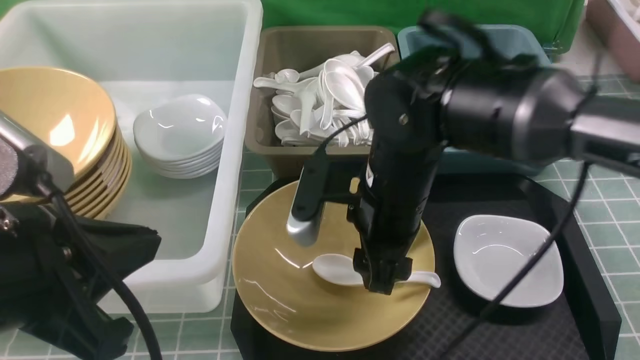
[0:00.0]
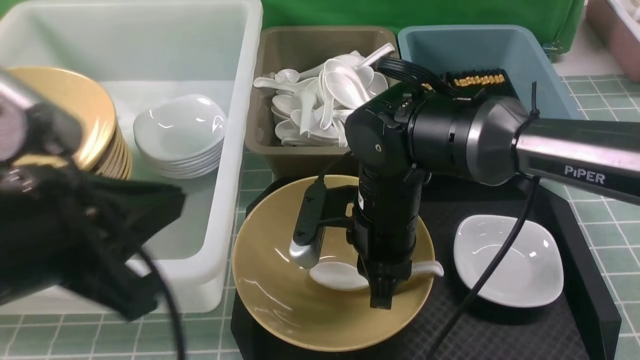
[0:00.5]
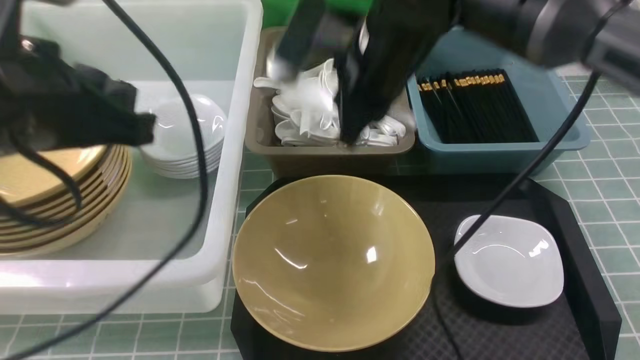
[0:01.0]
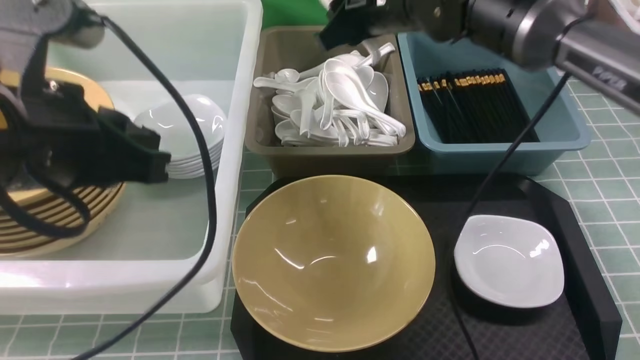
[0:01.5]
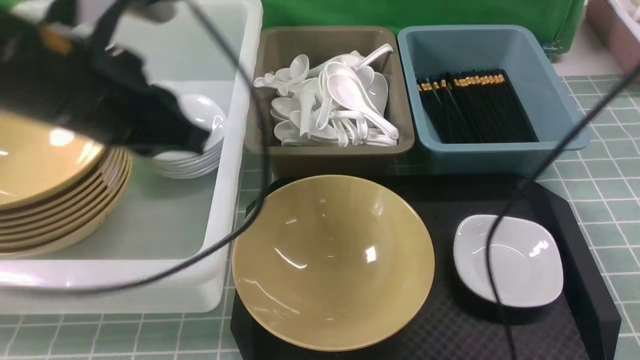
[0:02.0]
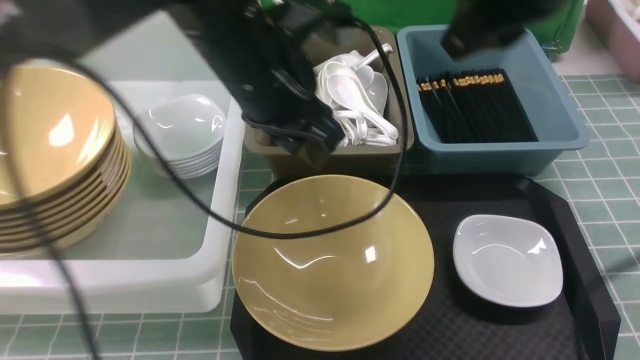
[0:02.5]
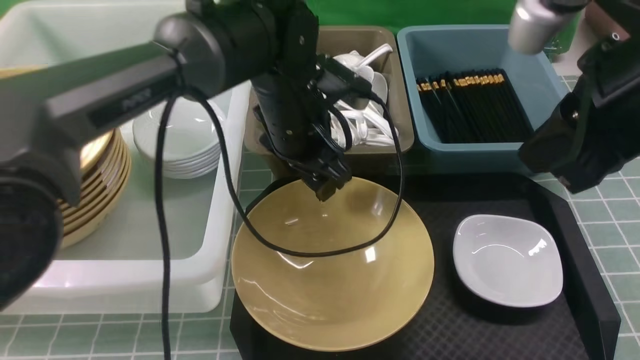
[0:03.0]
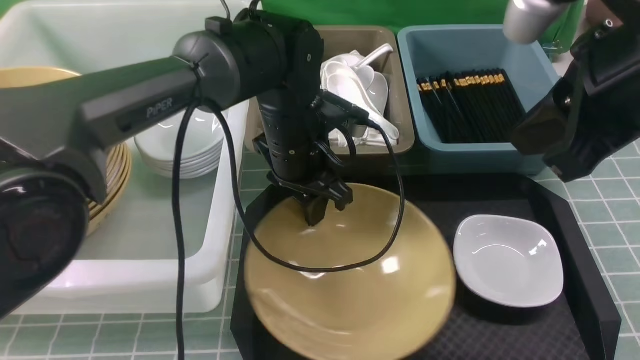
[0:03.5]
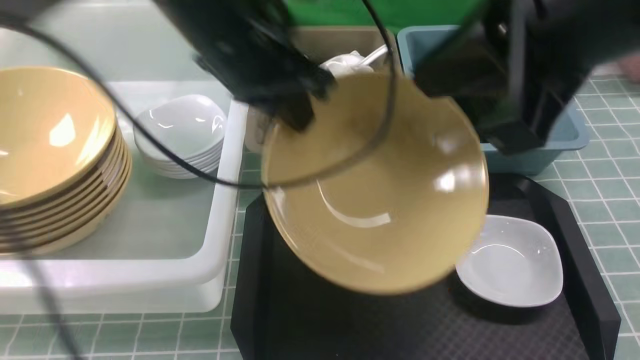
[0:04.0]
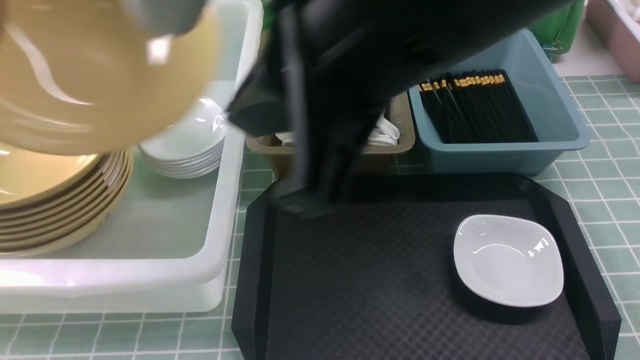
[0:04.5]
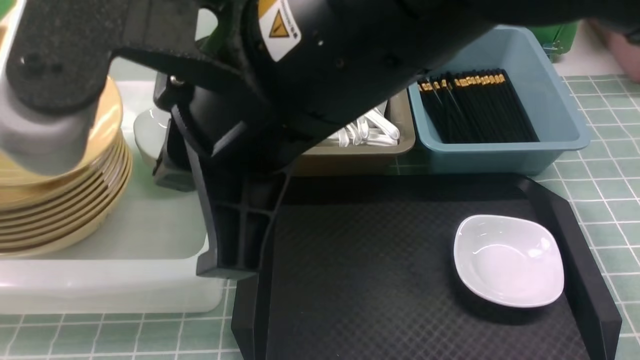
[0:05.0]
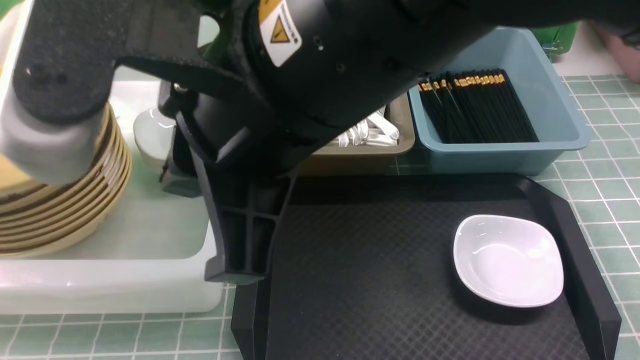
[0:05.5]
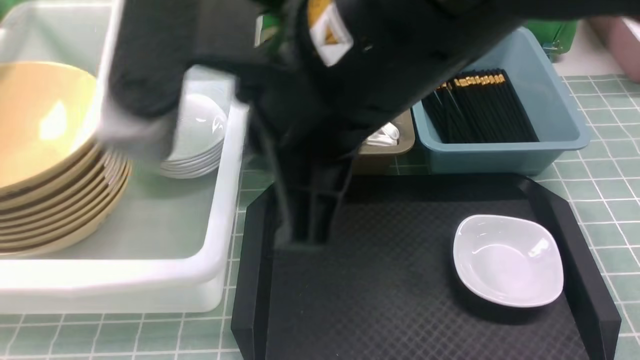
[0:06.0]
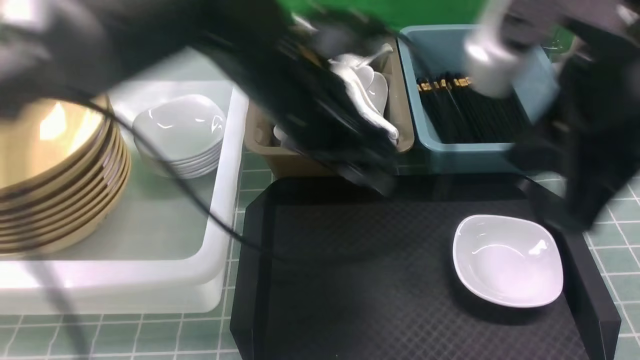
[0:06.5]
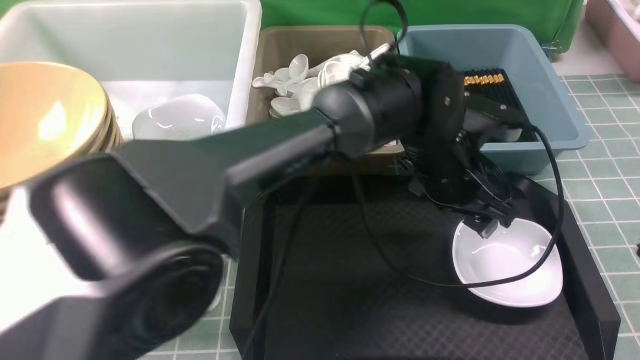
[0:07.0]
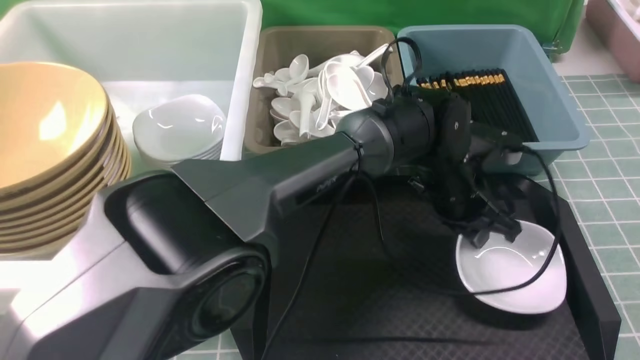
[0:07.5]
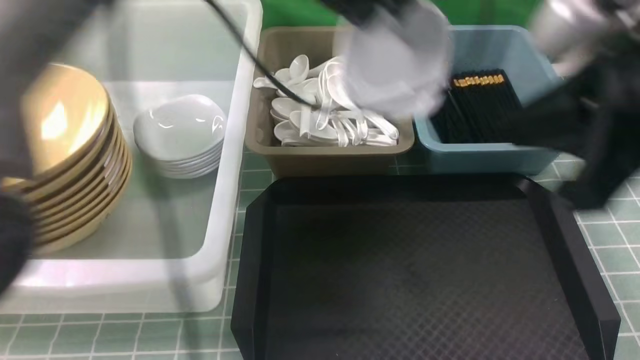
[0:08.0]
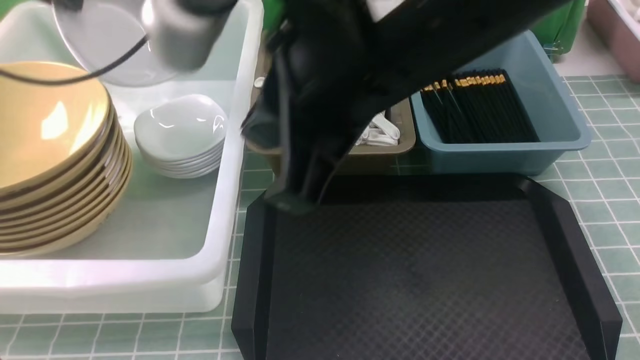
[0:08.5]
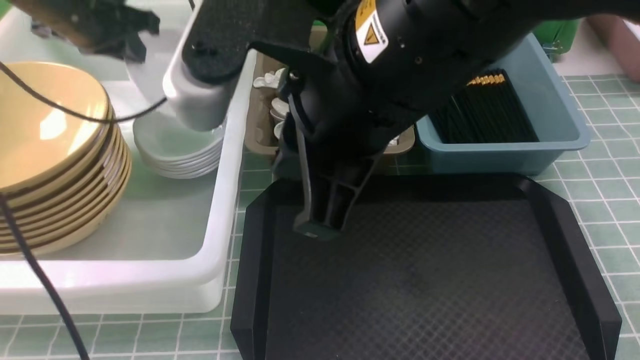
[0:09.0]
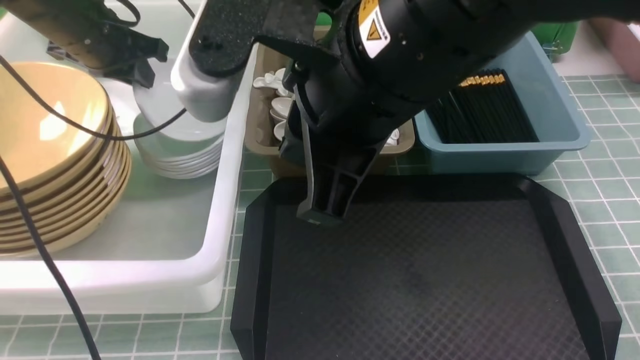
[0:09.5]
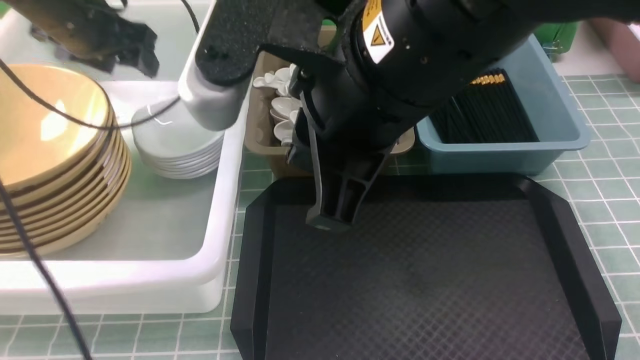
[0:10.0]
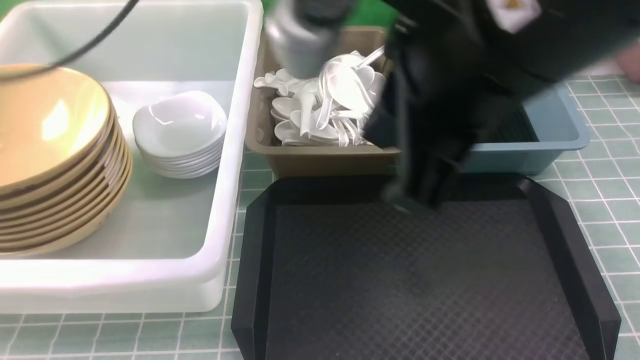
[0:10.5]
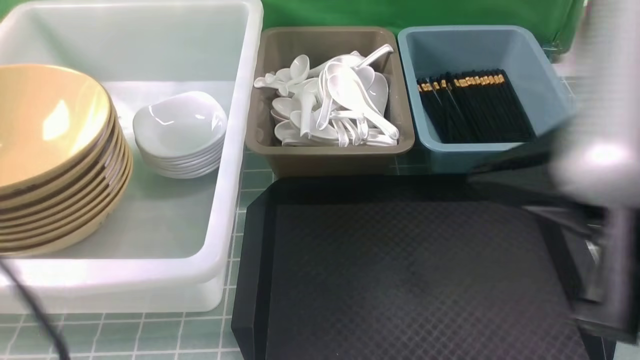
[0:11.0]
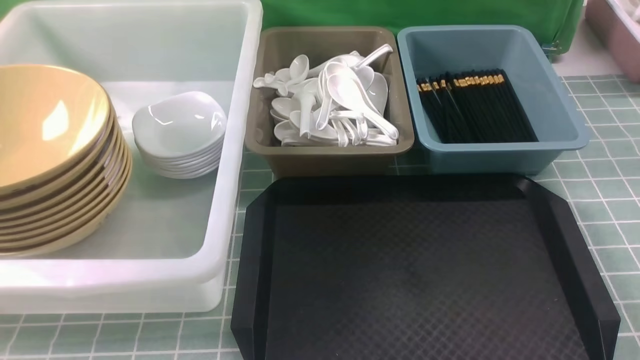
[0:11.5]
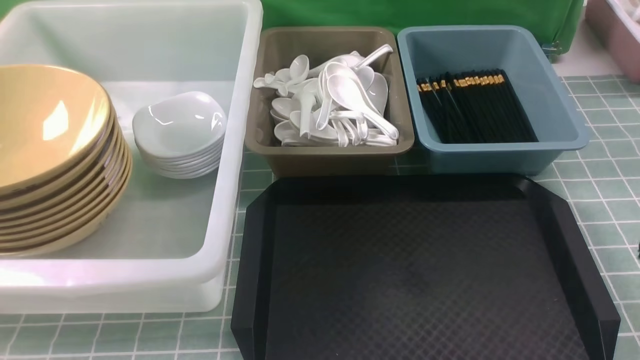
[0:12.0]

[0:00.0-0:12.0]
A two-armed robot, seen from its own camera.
Task of the whole recording: on blue table put chopsticks spoon bowls plates into blue grey white boxes.
Step, 0:01.0 to 0:01.5: use the right arm to put the soup spoon into the small storage box in the middle.
Step, 0:02.0 to 0:03.5: use the left arm to grab the yellow noodle bowl on the left.
Step, 0:04.0 to 0:05.5: use the left arm to put the noodle bowl into the large storage box on the left.
Step, 0:06.0 to 0:07.5: use the left arm to grab the plate.
Step, 0:08.0 to 0:10.0: use the left arm to put the plate into the large storage box on the left.
0:00.0 to 0:02.0: The right gripper travels upward and forward by some 20 cm, and closes and opens again. Meanwhile the left gripper travels forward by about 15 cm.
0:02.0 to 0:04.0: The left gripper is displaced forward by some 5 cm, goes downward and returns, about 15 cm each way, and opens, then closes once more. Meanwhile the right gripper shifts roughly 20 cm backward, and closes its fingers.
0:04.0 to 0:06.0: The right gripper goes approximately 10 cm to the left, while the left gripper is displaced to the left by about 15 cm, and opens up.
0:06.0 to 0:08.0: The left gripper is displaced to the right by about 25 cm, and closes its fingers. Meanwhile the right gripper is displaced to the right by some 15 cm.
0:08.0 to 0:10.0: The right gripper heads to the left, covering about 10 cm, while the left gripper goes approximately 20 cm to the left, and opens up.
0:10.0 to 0:12.0: The left gripper travels backward by roughly 40 cm, and closes up, while the right gripper travels to the right and backward by some 25 cm.

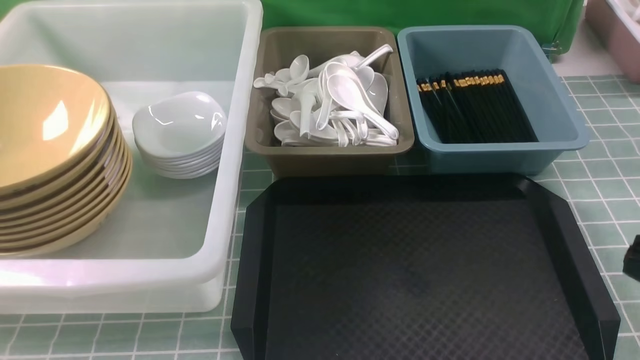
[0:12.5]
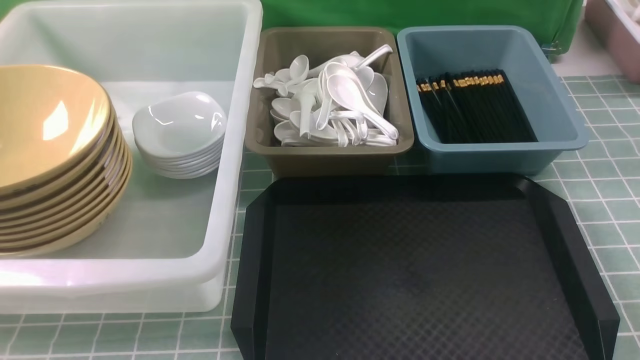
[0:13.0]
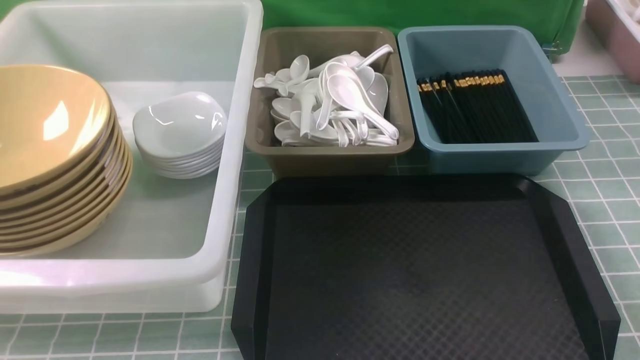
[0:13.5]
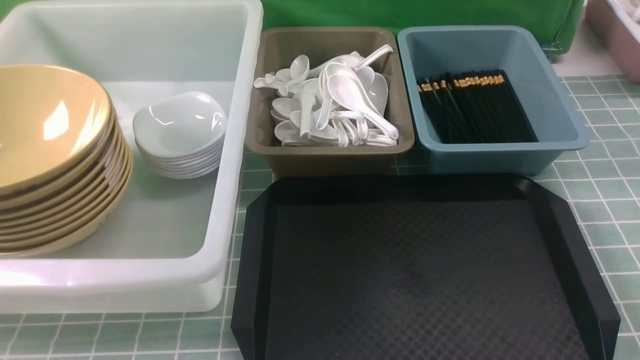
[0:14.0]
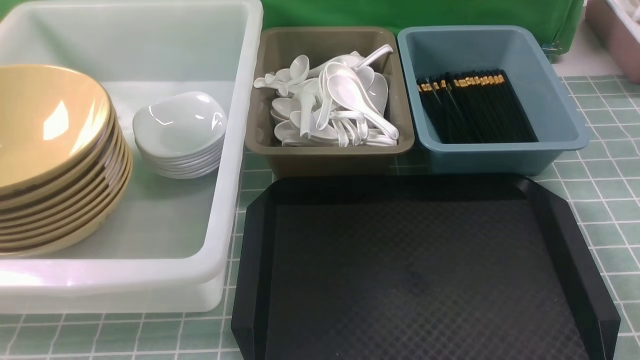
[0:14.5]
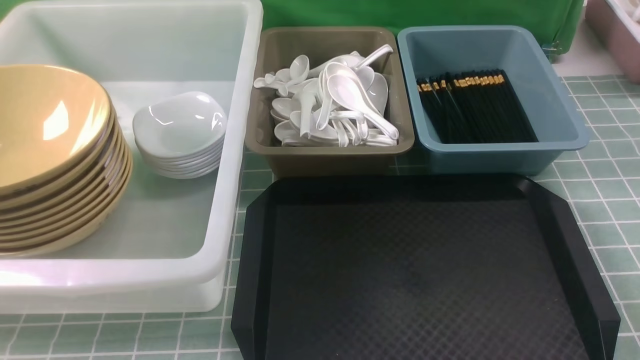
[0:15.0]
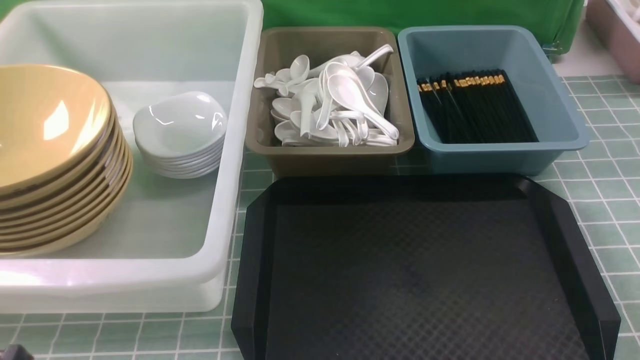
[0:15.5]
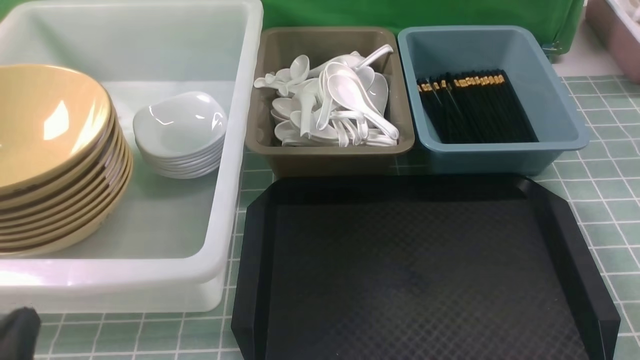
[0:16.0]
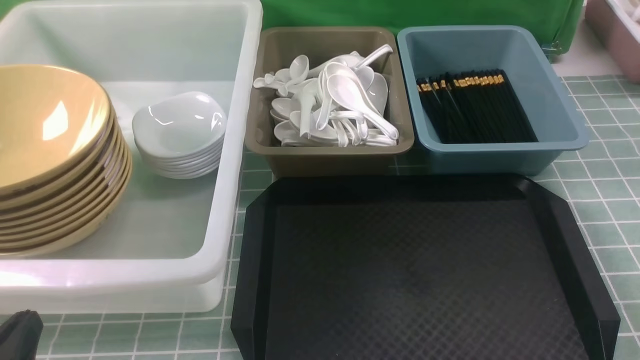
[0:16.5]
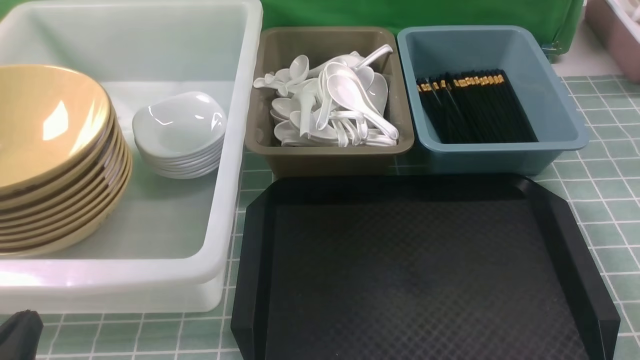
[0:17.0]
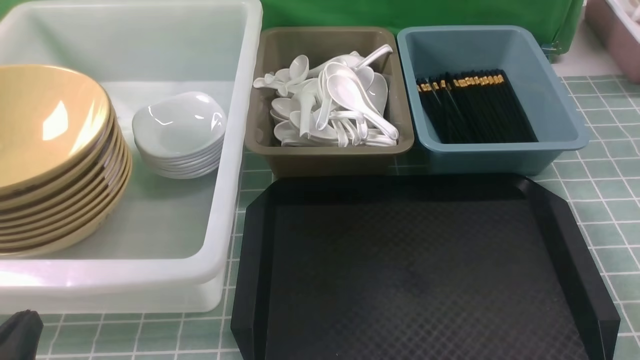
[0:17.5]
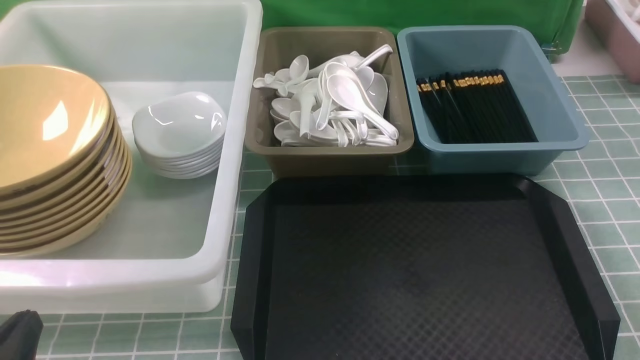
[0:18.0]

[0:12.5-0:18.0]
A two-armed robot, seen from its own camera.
Task of the whole recording: on blue table put chopsticks spoon bowls plates into blue grey white boxes.
0:14.5 to 0:16.0: The left gripper shifts some 15 cm downward and forward.
0:16.0 to 0:18.0: Neither gripper changes place.
